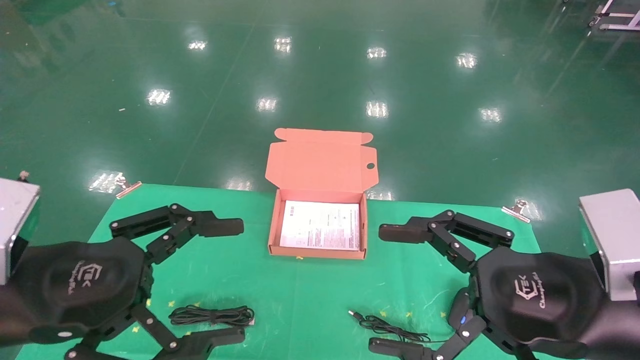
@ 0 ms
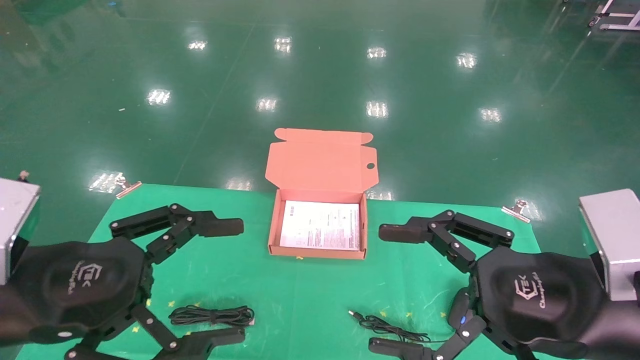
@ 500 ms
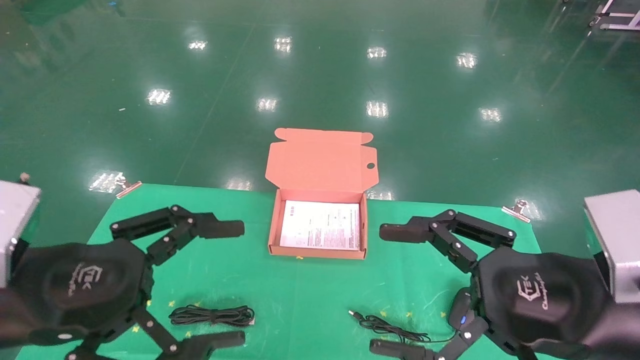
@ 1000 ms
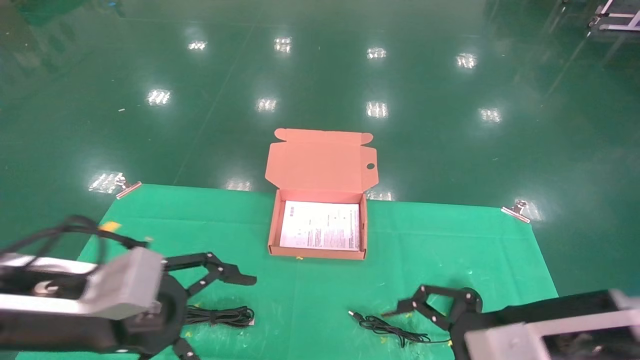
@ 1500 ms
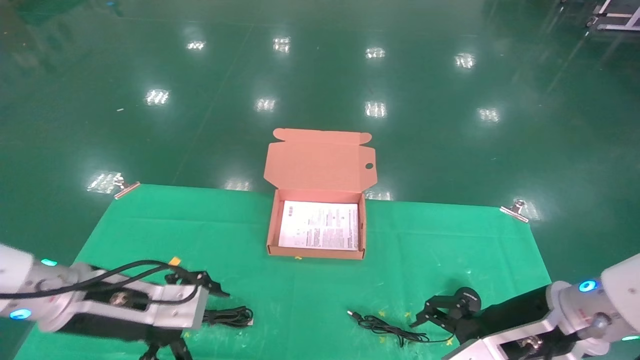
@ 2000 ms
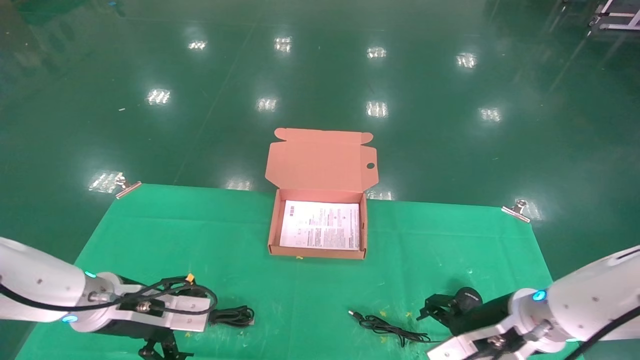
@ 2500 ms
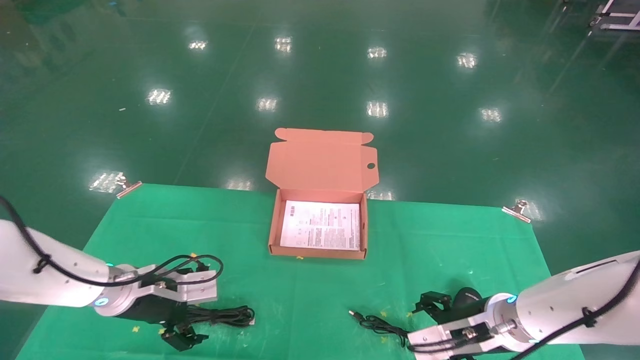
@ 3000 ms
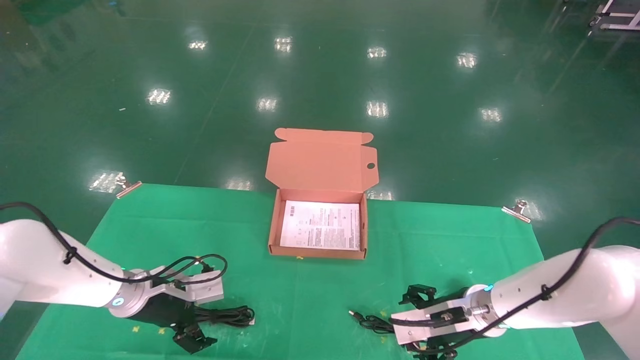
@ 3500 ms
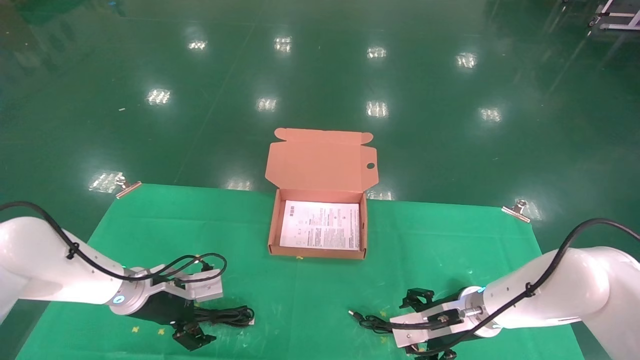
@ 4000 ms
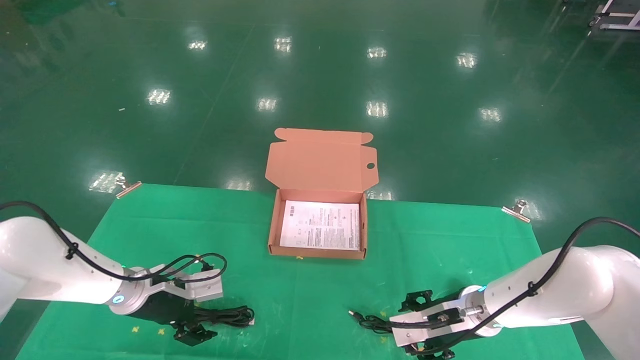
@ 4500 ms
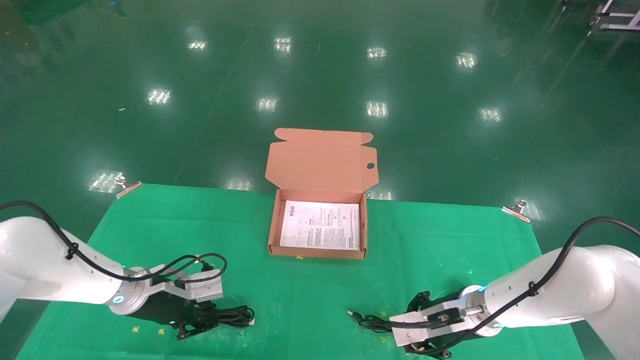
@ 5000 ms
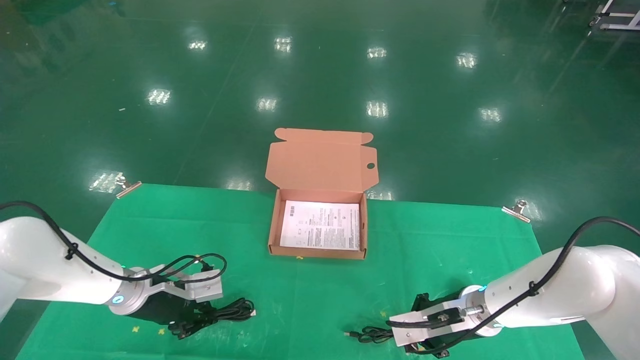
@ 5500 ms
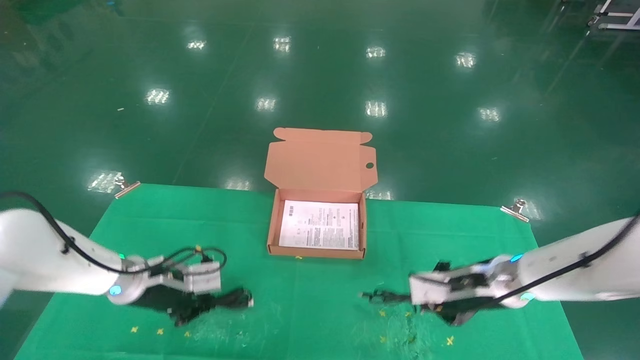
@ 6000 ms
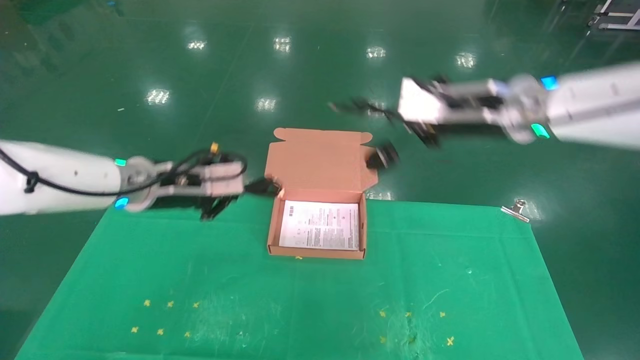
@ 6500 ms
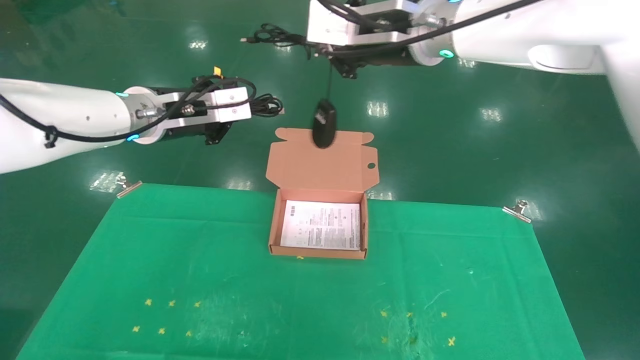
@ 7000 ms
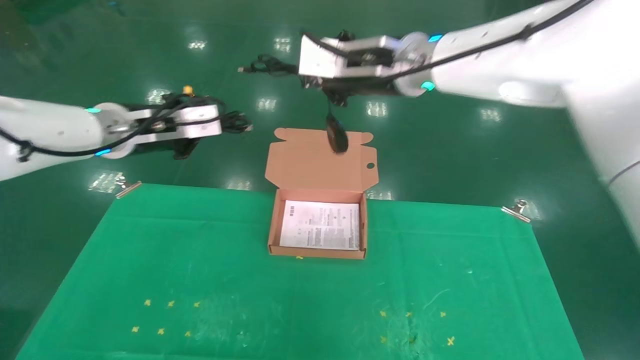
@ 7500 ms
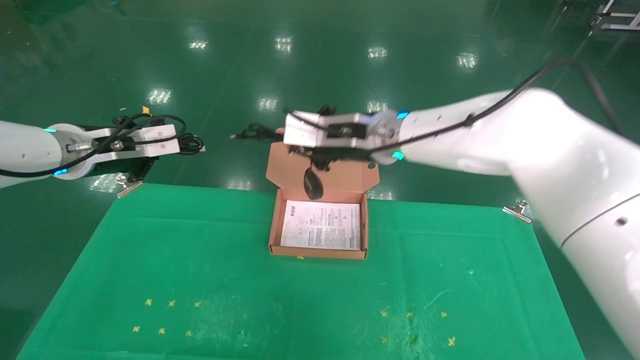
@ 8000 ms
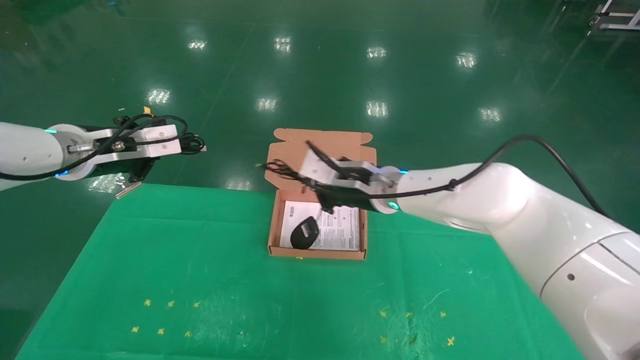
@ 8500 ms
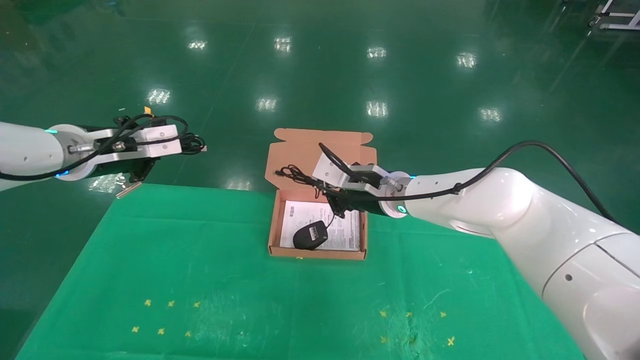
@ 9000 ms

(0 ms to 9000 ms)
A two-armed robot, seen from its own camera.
Task of the whole recording: grasp data cable left put into box grasp mouse right put into box.
Step, 1000 ms - 5500 ms: Grab and pick up both the mouse and power cord from the accessory packaging area at the same time.
0 ms - 2000 ms: Both grippers move forward and downward, about 15 cm.
2000 ms - 4500 ms: Both grippers travel together forward and downward, approximately 15 cm.
4500 ms - 7000 ms: The two grippers go roughly 30 cm upward. The right gripper closes its fingers; the left gripper closes.
7000 ms - 9000 ms: The left gripper moves to the left, some 10 cm. The right gripper shifts about 20 cm downward.

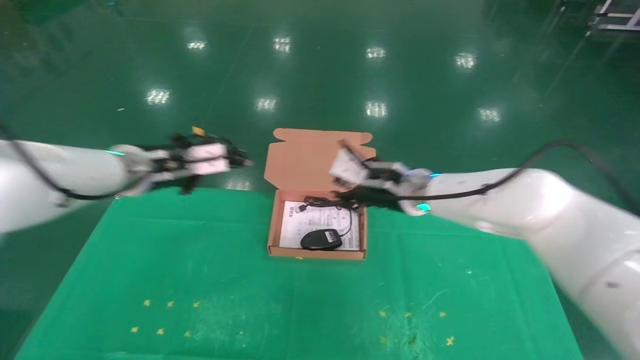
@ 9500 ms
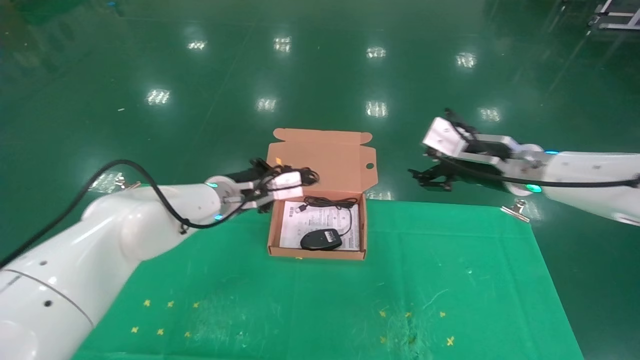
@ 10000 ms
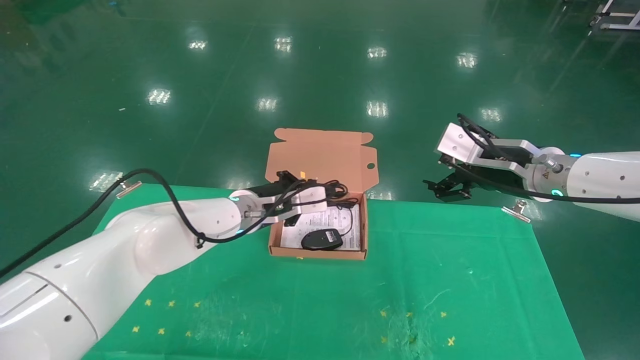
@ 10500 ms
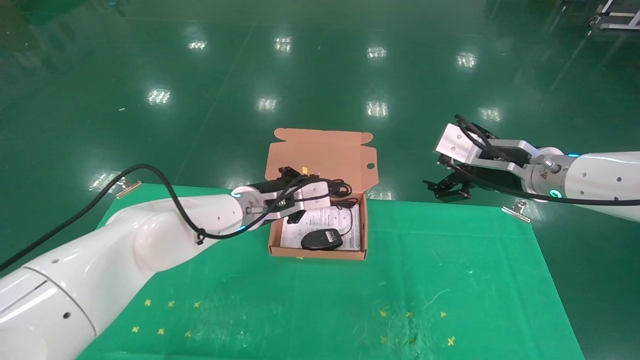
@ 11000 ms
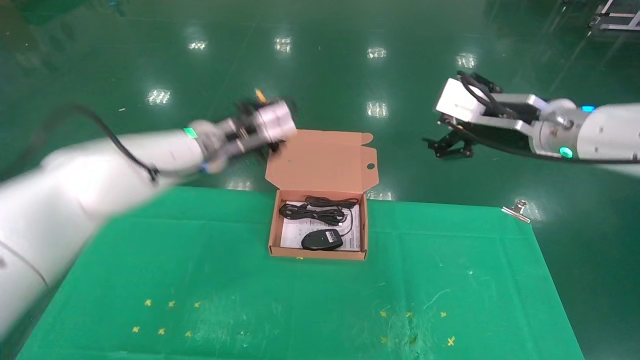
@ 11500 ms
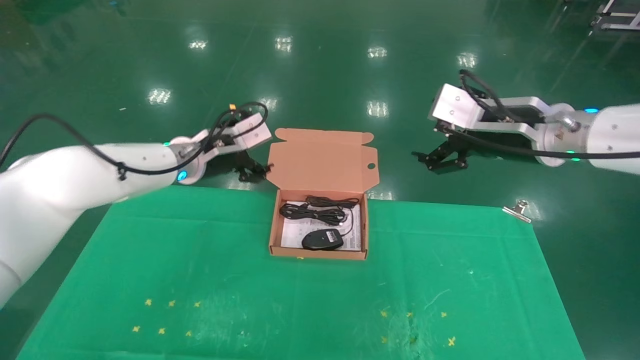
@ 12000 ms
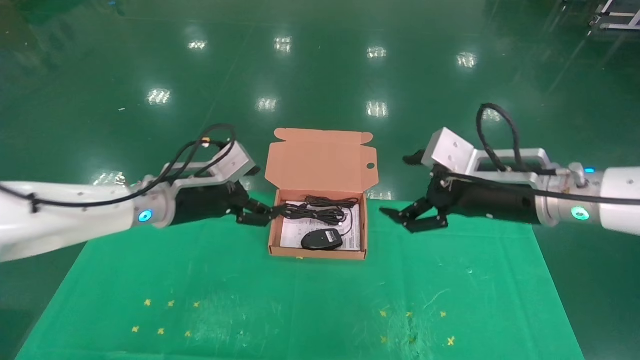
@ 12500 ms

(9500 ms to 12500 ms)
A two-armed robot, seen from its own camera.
Task of the whole recording: grasp data cable left put into box grasp mouse right put into box.
9500 ms - 11000 ms: The right gripper is displaced to the right and backward by roughly 15 cm, and opens. Meanwhile the left gripper shifts approximately 15 cm to the right and downward.
11000 ms - 12500 ms: The right gripper shifts approximately 5 cm backward; the left gripper travels to the left and backward by some 10 cm, and opens up.
